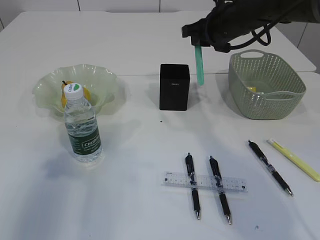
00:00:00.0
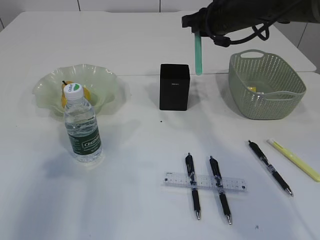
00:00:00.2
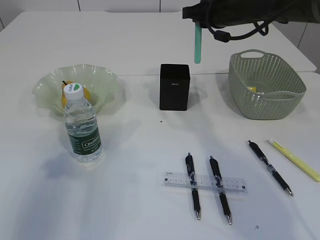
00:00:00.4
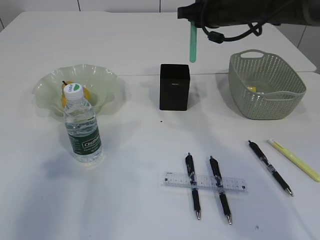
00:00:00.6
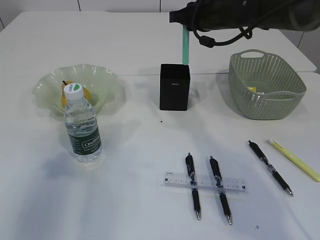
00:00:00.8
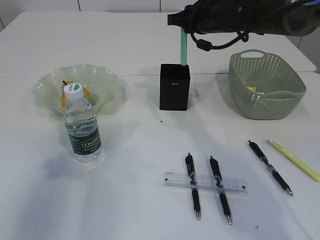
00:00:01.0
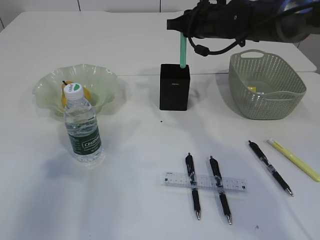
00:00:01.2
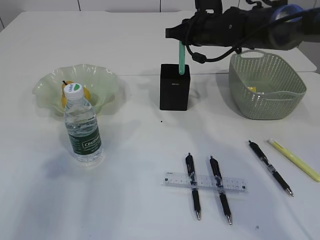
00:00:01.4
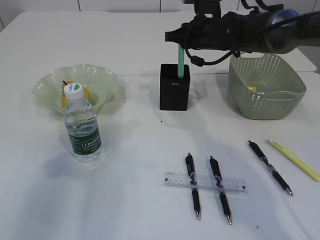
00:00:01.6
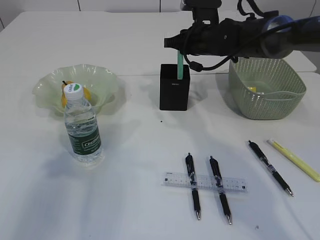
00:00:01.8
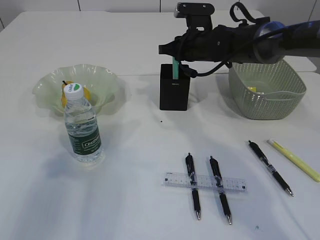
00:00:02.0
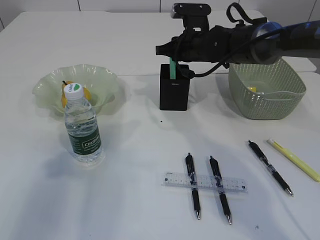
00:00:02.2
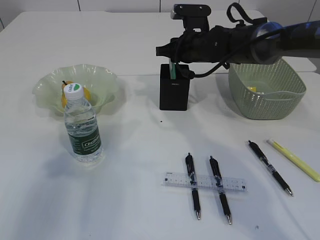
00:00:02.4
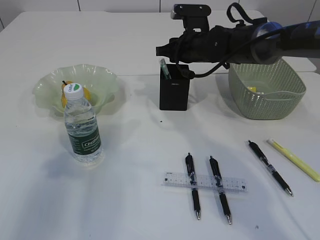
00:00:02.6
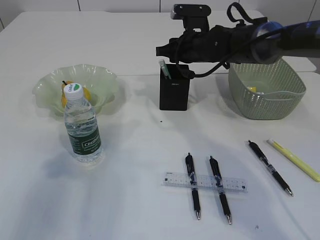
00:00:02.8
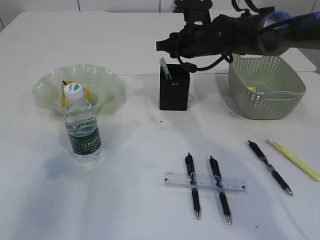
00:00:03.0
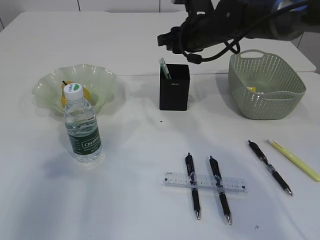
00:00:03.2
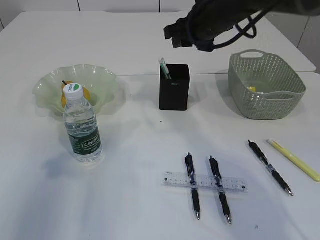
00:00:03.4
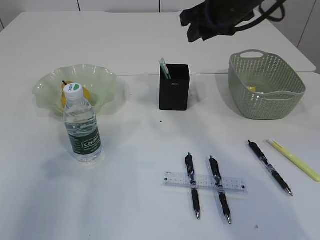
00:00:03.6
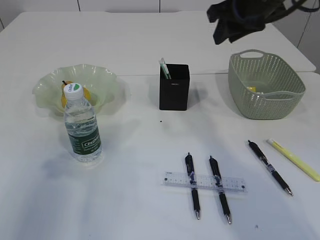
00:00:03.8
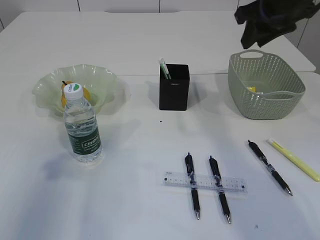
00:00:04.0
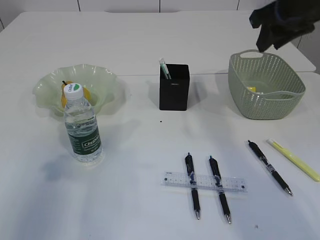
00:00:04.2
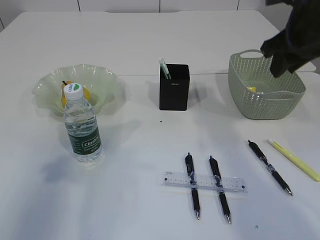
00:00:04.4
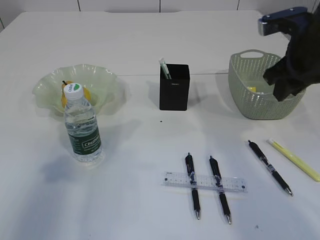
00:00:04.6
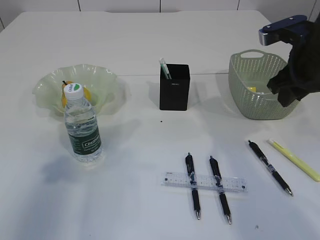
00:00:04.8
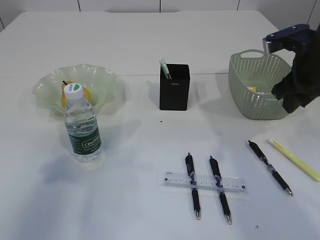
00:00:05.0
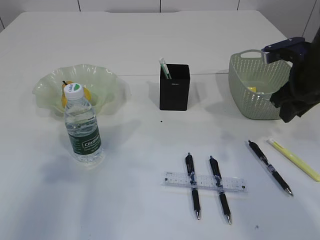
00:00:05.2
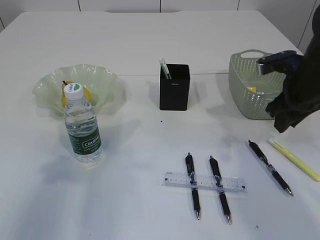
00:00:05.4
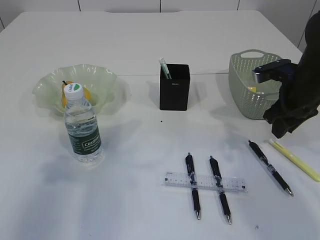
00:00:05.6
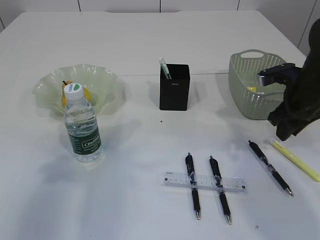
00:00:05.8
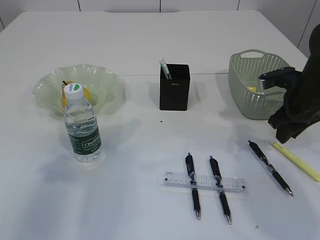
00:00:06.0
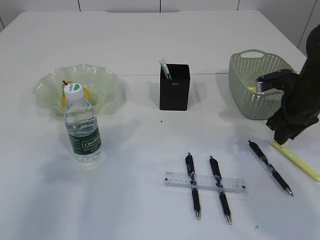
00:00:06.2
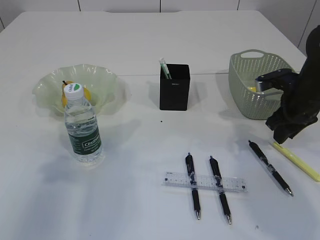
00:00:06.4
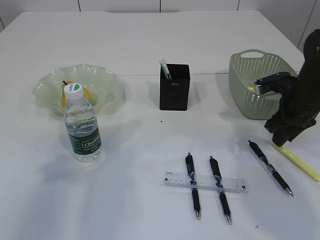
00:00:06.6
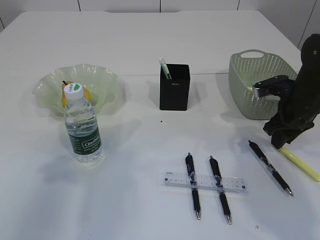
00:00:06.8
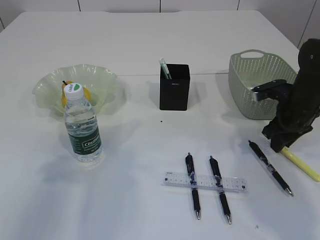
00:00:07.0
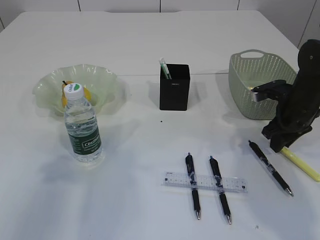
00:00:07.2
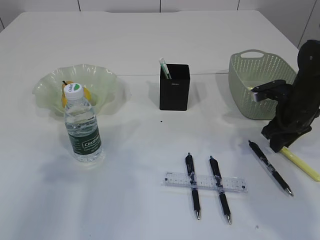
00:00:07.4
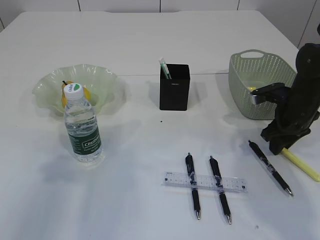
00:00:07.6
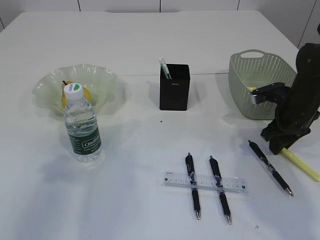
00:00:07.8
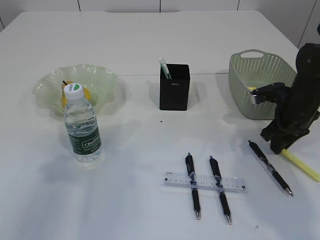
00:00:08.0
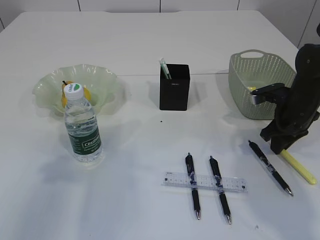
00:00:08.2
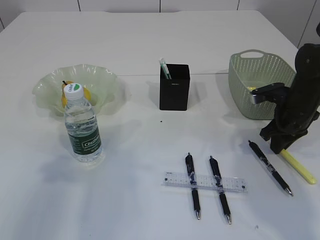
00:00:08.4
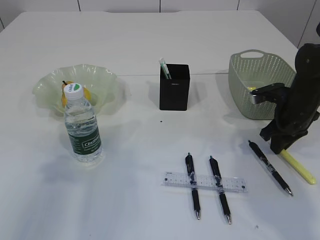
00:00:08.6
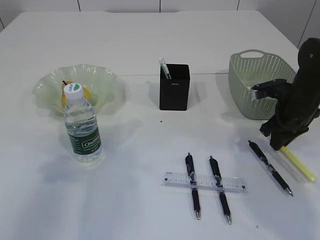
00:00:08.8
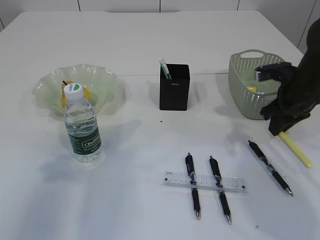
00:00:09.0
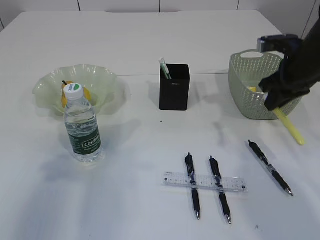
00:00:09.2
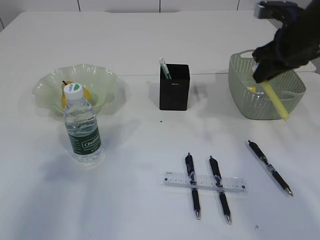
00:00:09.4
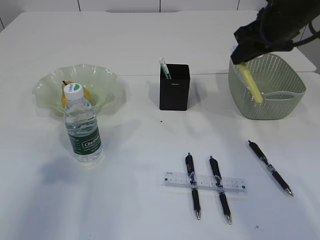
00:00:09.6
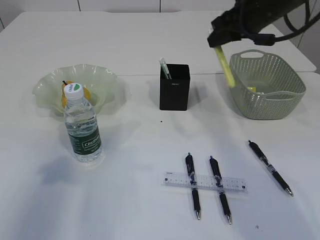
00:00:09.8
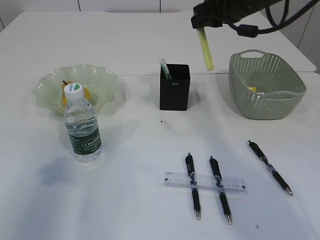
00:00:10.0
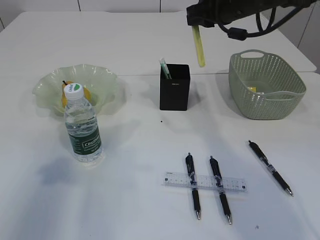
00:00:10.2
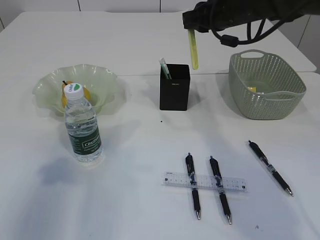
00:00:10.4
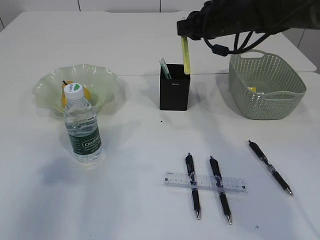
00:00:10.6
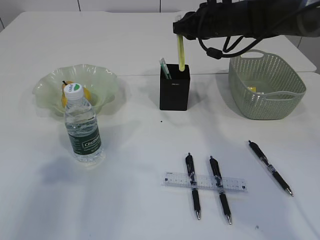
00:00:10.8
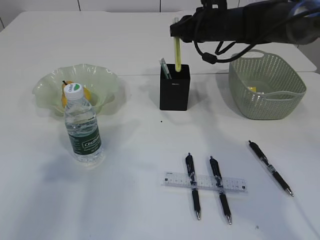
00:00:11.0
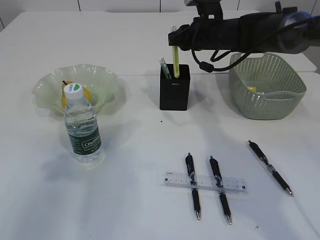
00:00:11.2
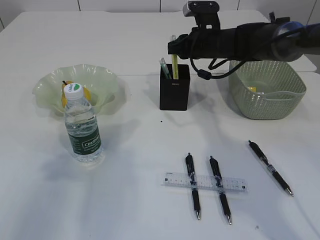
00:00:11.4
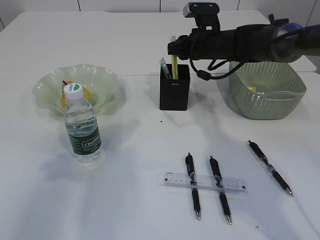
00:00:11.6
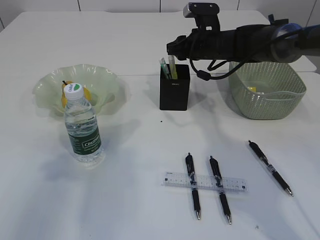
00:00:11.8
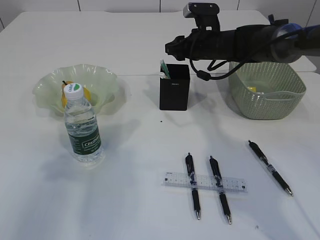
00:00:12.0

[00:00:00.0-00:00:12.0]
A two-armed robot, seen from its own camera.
Step, 00:00:00.0 to 00:00:03.0: Place the blue knife into the pen holder.
Step, 00:00:03.2 to 00:00:08.8: pick up the yellow knife.
00:00:00.0 to 00:00:01.6: The right gripper ends up about 5 cm from where it was.
00:00:01.6 to 00:00:03.0: The grippers make only small movements.
00:00:03.0 to 00:00:04.4: The right gripper shifts roughly 20 cm to the right, backward and upward.
00:00:04.4 to 00:00:06.0: The right gripper shifts some 15 cm downward.
00:00:06.0 to 00:00:07.6: The grippers make only small movements.
00:00:07.6 to 00:00:09.0: The right gripper goes roughly 5 cm upward.
00:00:09.0 to 00:00:10.4: The right gripper moves to the left, upward and forward, some 20 cm.
00:00:10.4 to 00:00:12.0: The right gripper is displaced downward and forward by roughly 10 cm, and opens up.

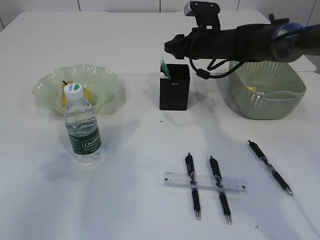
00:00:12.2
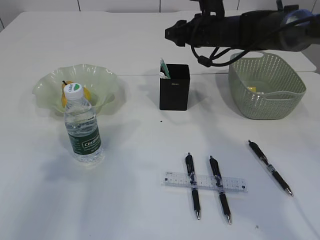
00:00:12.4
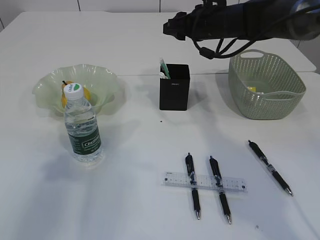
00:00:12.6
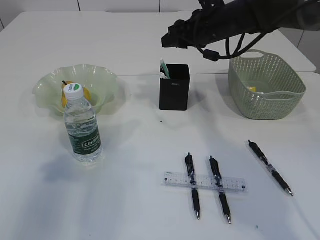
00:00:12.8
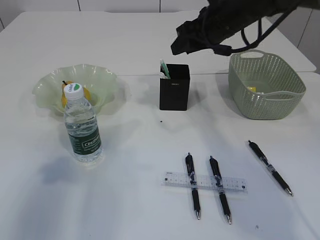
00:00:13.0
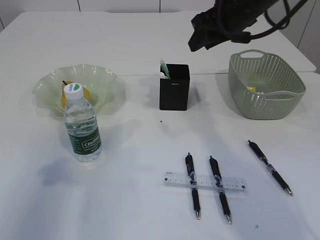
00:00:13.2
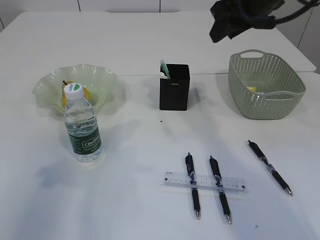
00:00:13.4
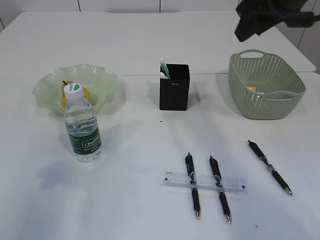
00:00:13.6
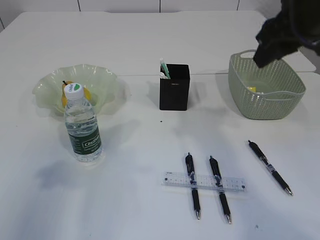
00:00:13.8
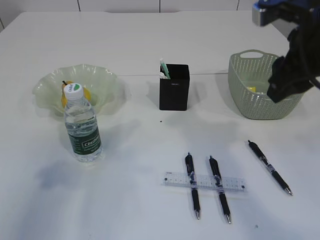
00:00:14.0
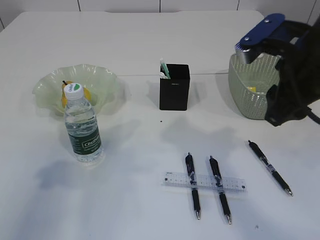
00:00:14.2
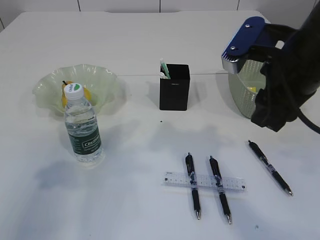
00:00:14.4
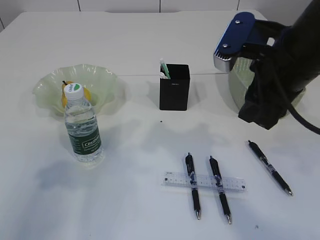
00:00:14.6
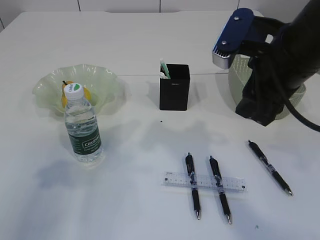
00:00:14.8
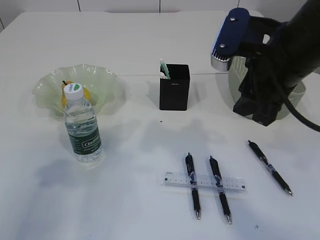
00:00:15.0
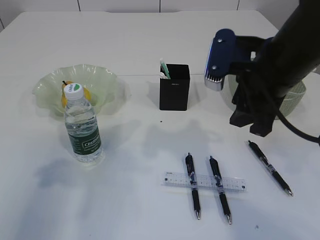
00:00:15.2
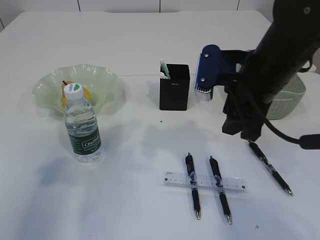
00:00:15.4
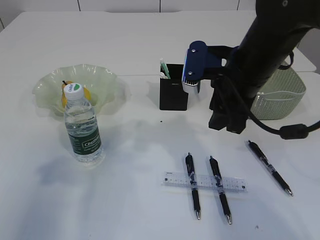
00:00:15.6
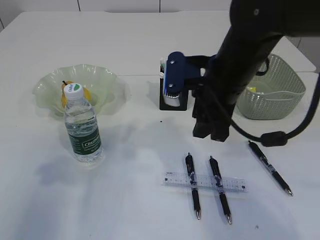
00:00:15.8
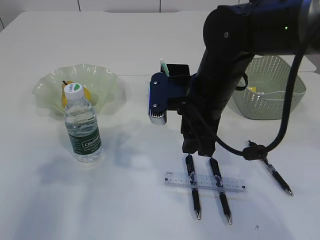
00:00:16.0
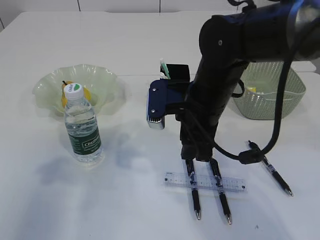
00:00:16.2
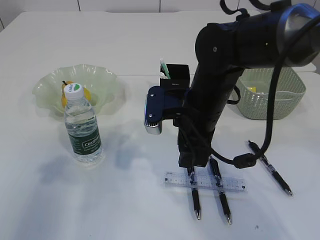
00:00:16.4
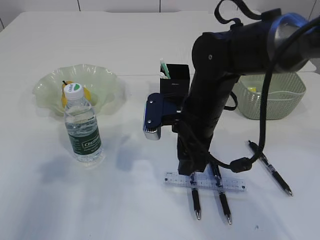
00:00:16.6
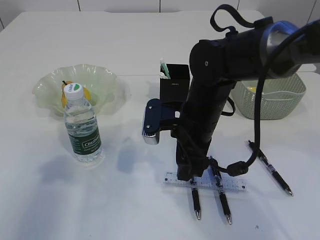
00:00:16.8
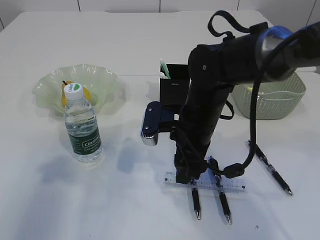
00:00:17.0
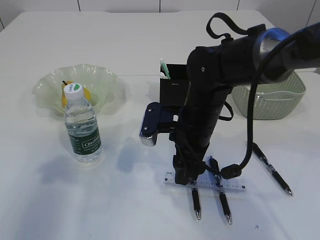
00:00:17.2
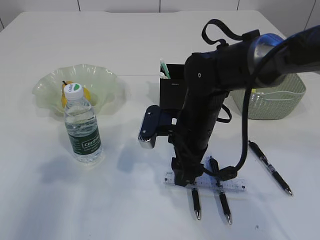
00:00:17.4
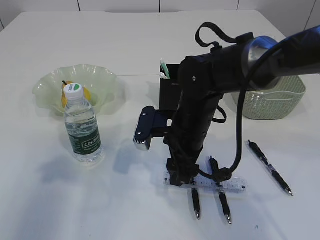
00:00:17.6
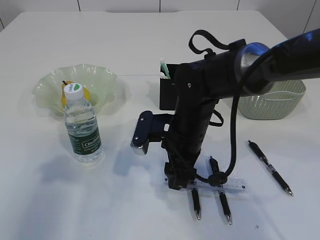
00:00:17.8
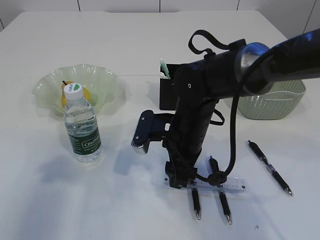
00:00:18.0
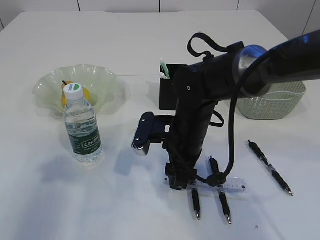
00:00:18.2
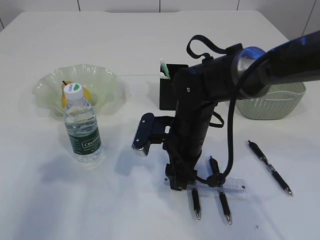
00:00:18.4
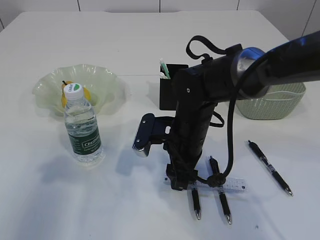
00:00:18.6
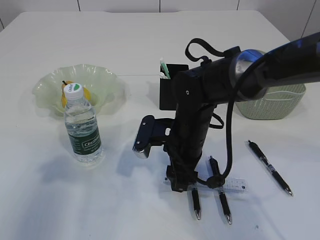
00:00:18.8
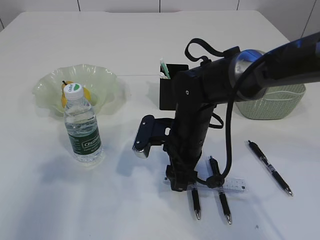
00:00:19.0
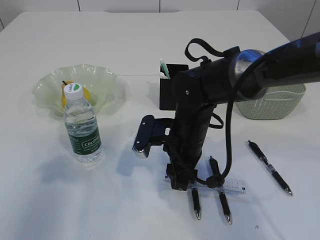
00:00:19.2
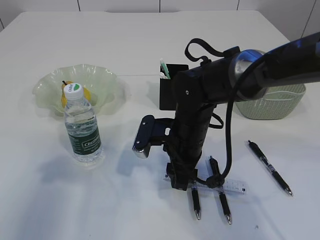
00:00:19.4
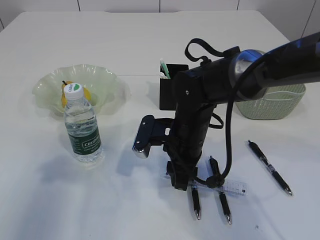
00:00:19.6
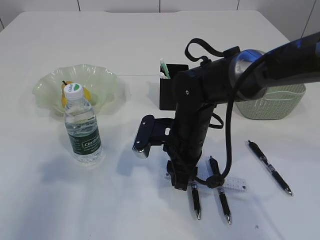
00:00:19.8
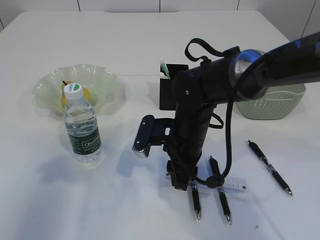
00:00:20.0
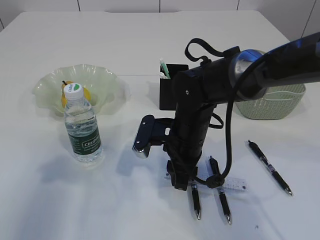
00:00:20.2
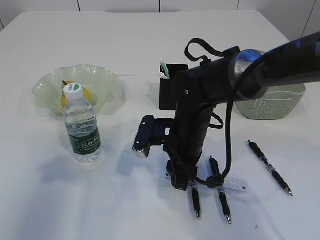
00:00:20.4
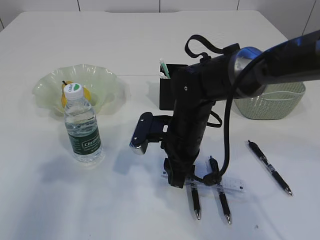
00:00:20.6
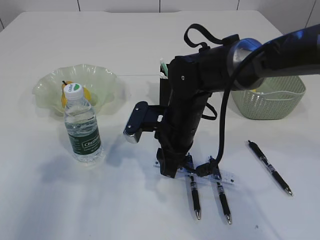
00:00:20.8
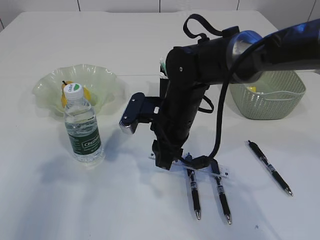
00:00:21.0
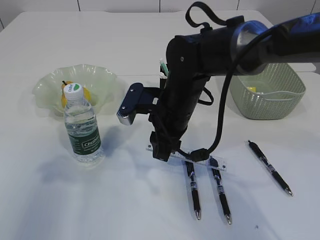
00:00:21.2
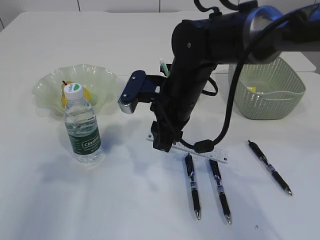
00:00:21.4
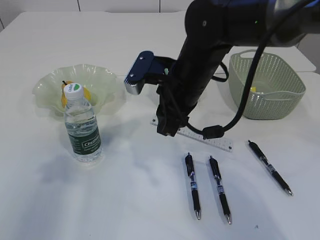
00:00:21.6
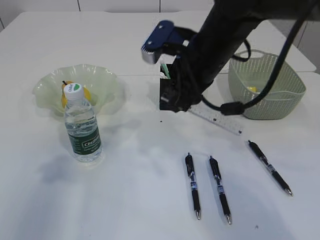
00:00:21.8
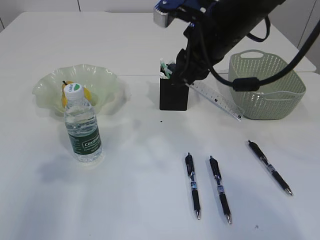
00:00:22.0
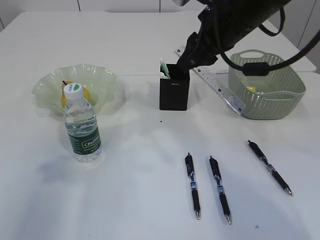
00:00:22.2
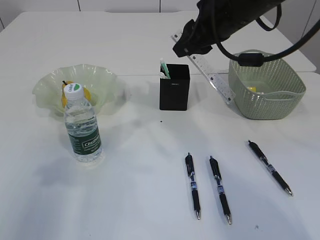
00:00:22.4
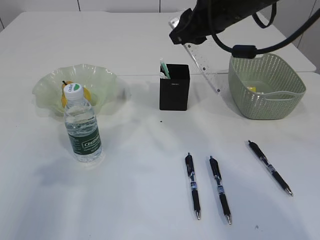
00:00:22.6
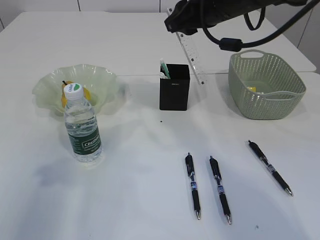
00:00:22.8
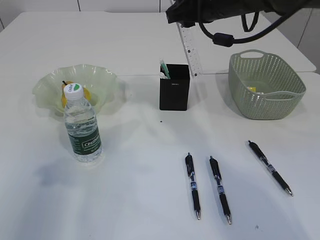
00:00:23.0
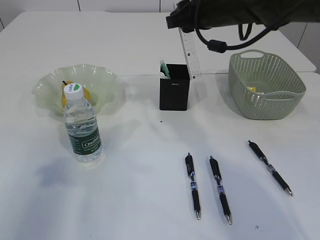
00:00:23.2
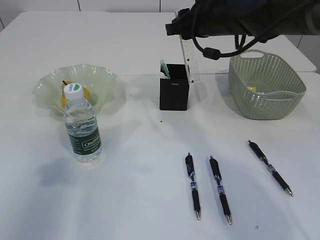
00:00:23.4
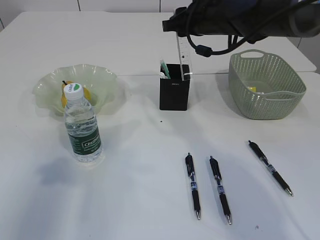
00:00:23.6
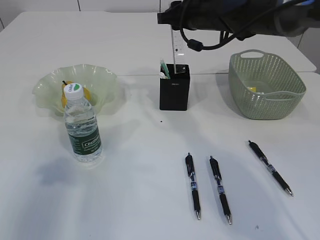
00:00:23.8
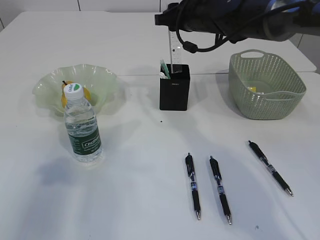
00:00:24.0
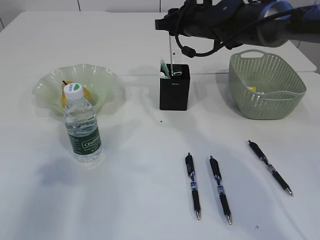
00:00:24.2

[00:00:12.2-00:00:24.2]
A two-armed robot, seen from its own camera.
Step, 00:00:12.4 to 00:00:21.0: pick up the ruler.
00:00:12.2 to 00:00:13.8: The right gripper shifts some 25 cm backward and upward.
00:00:13.8 to 00:00:15.2: The right gripper is displaced downward and to the left by approximately 10 cm.
00:00:15.2 to 00:00:16.6: The right gripper goes about 15 cm downward and to the left.
00:00:16.6 to 00:00:18.2: The grippers move only a little.
00:00:18.2 to 00:00:19.8: The right gripper closes.
00:00:19.8 to 00:00:21.2: The right gripper changes place by some 5 cm.
00:00:21.2 to 00:00:22.6: The right gripper goes about 15 cm upward and to the right.
00:00:22.6 to 00:00:24.2: The right gripper is displaced forward and downward by approximately 15 cm.
